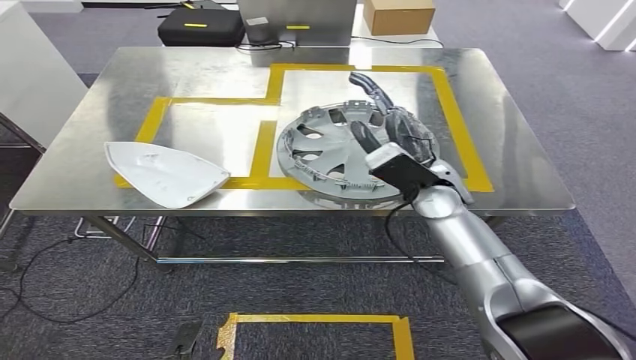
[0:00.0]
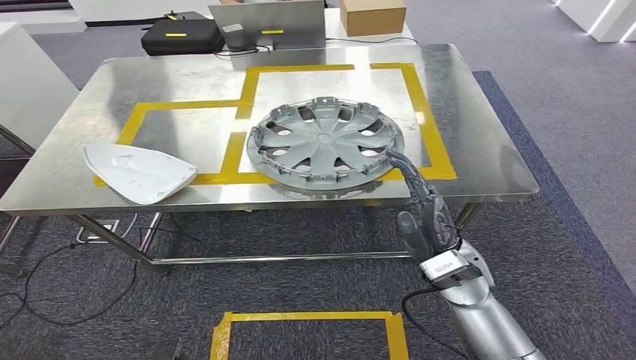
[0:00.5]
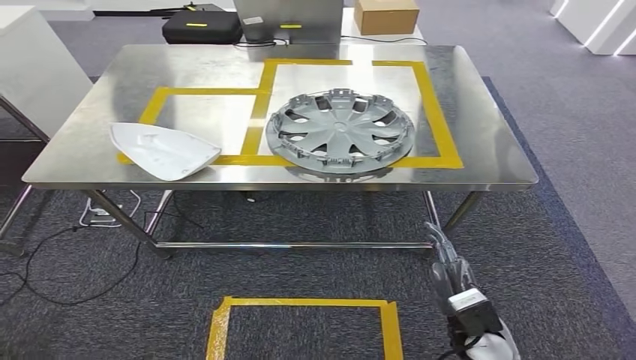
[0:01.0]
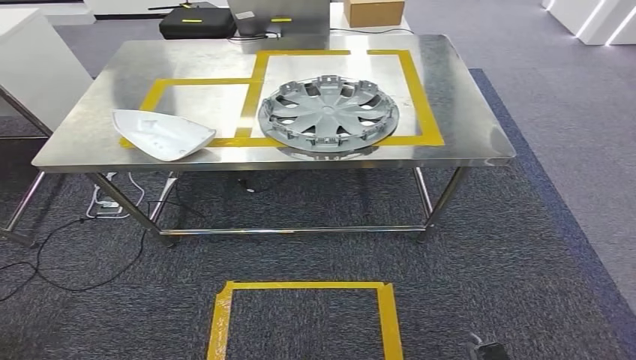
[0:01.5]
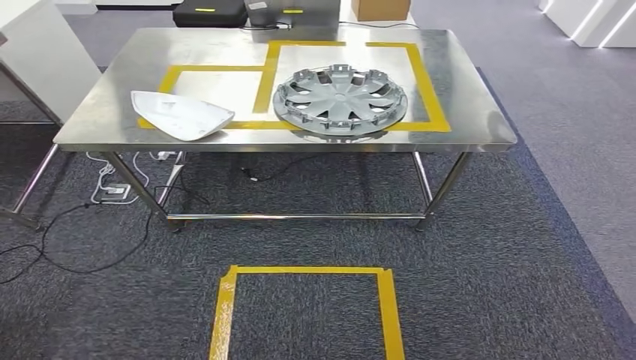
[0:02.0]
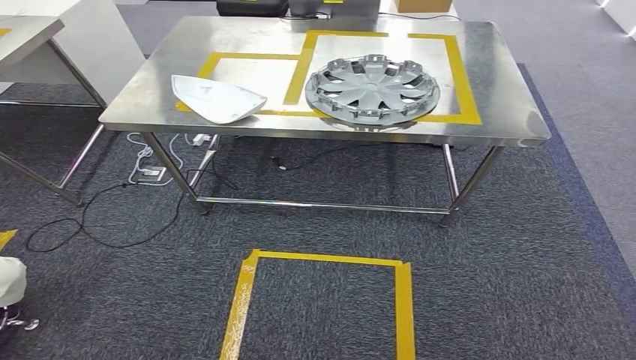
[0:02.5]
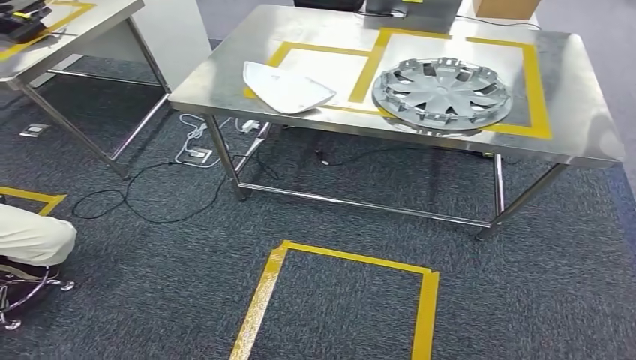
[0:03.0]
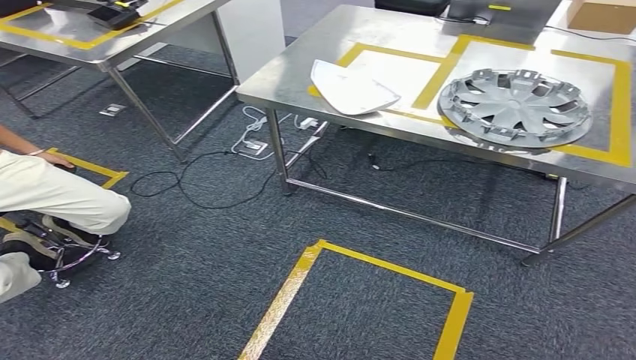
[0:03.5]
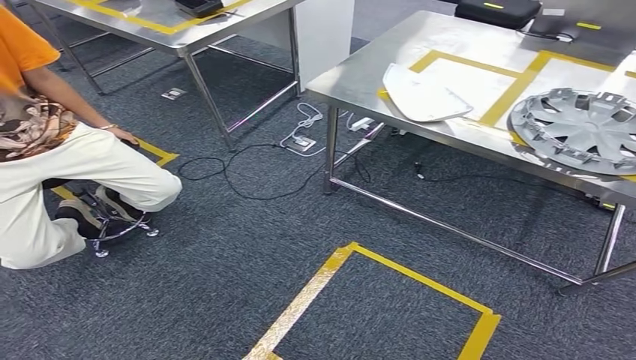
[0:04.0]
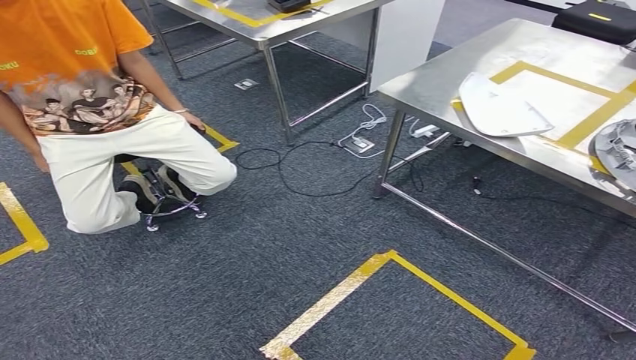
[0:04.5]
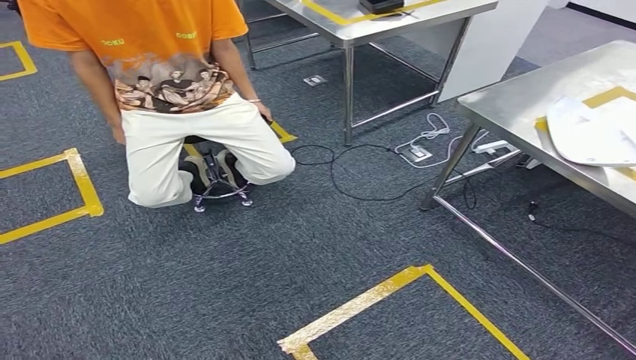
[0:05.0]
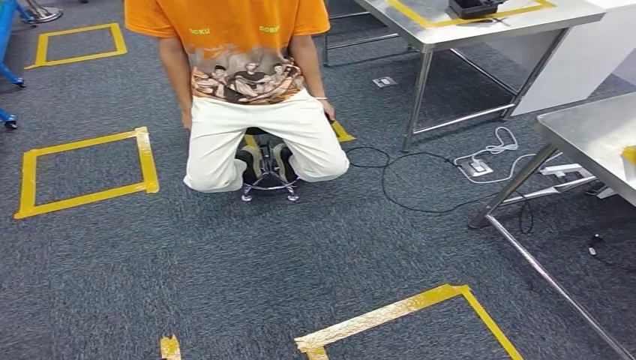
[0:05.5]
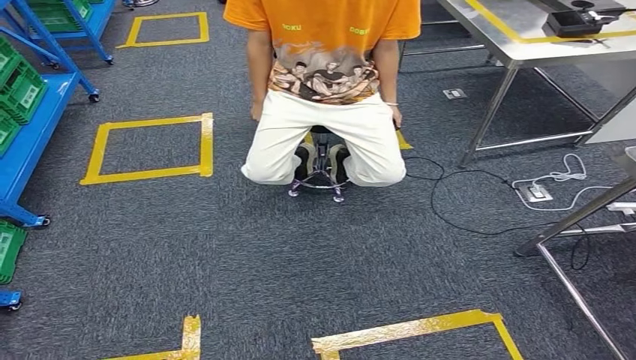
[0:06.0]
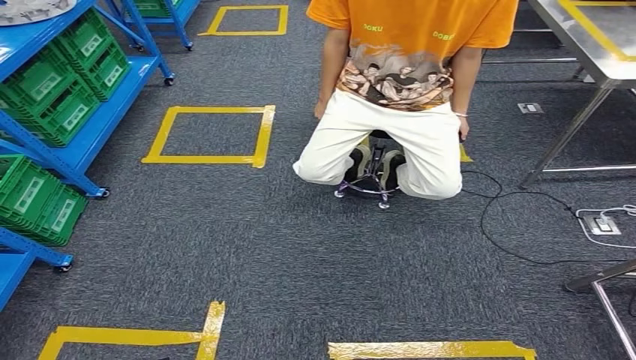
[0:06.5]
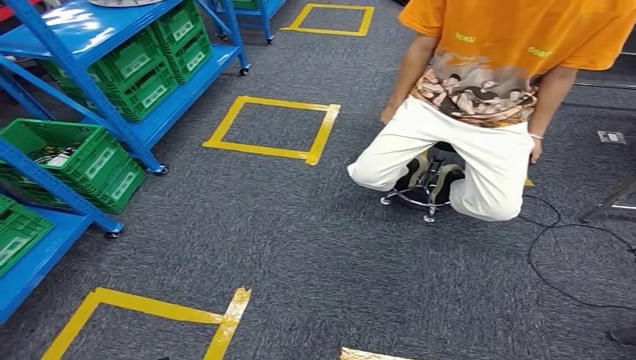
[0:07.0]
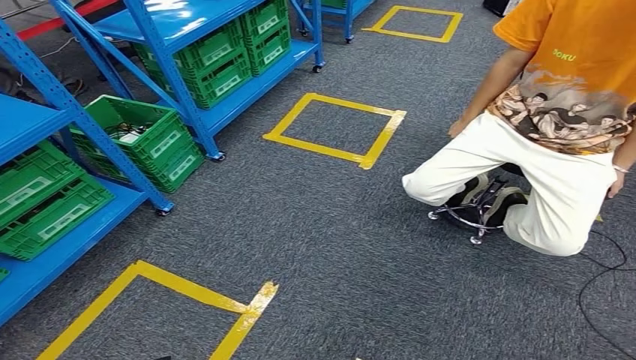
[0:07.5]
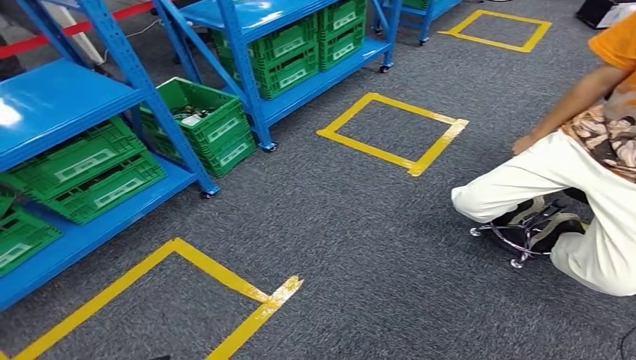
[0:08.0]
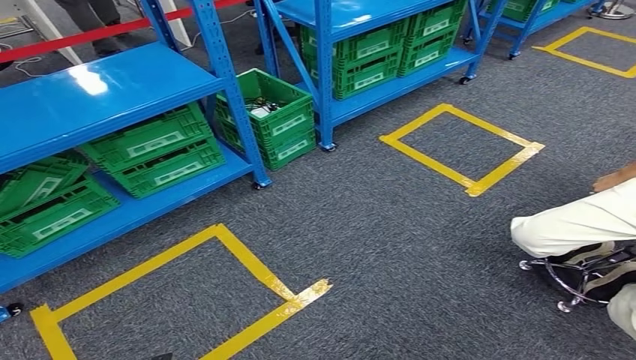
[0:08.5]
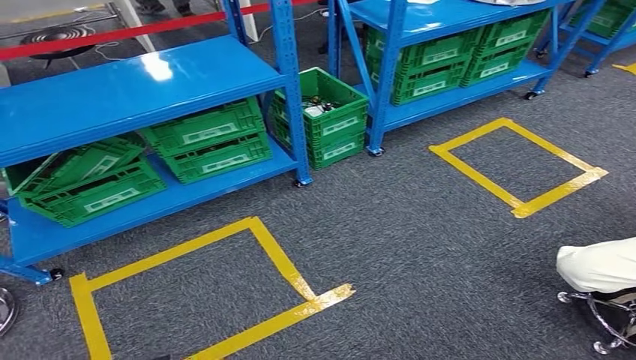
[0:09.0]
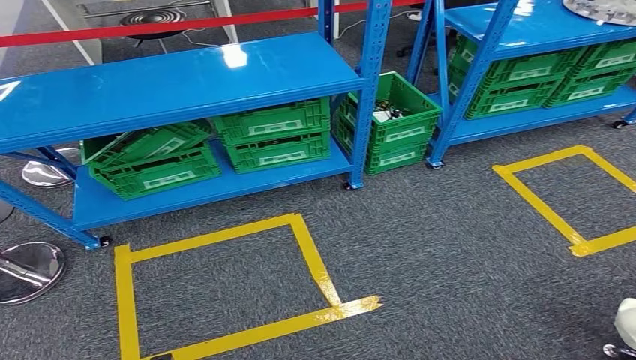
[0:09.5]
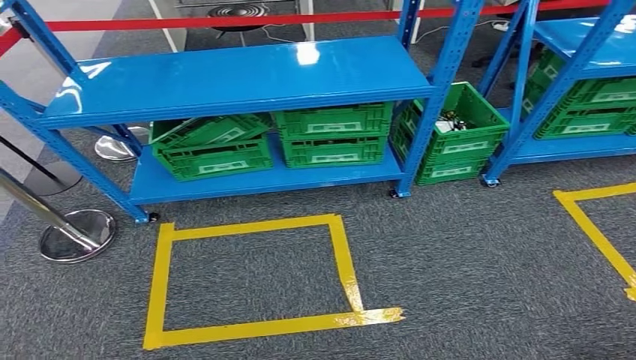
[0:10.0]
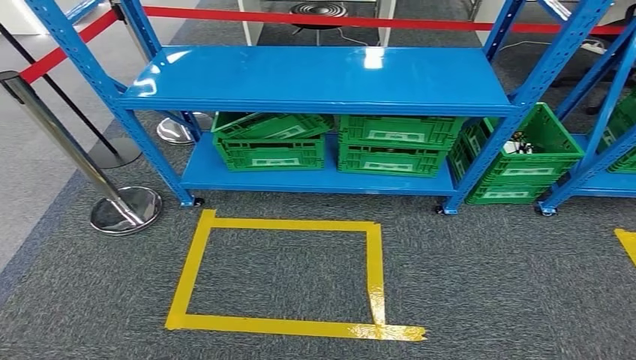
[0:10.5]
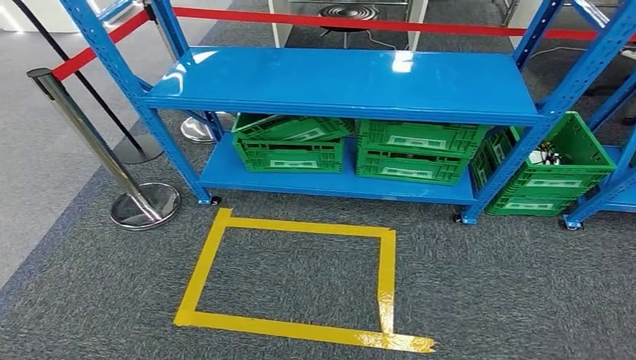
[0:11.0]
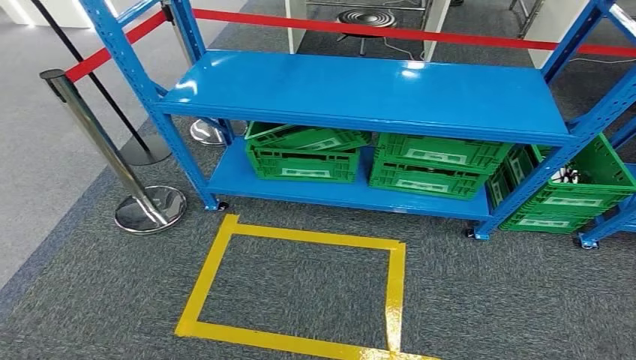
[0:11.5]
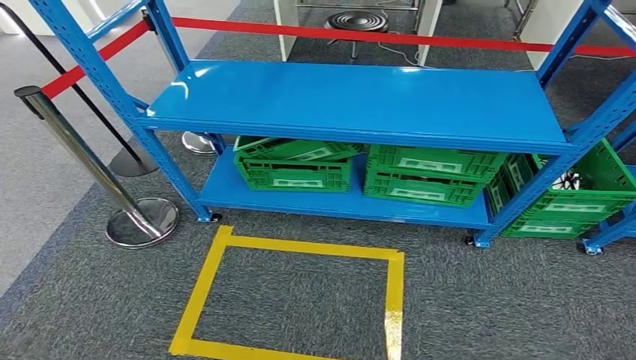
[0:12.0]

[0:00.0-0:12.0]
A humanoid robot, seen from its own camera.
Step, 0:00.5 to 0:12.0: Return to the initial position at the workbench.
